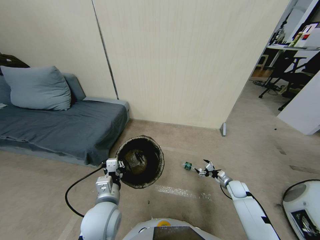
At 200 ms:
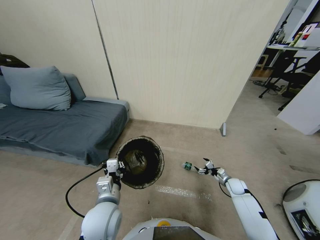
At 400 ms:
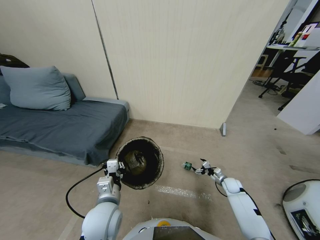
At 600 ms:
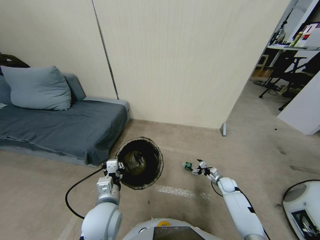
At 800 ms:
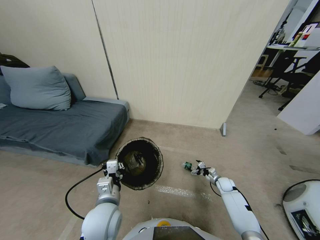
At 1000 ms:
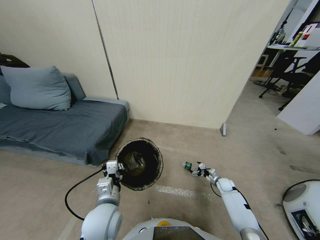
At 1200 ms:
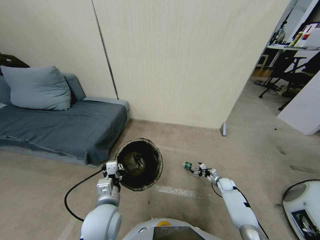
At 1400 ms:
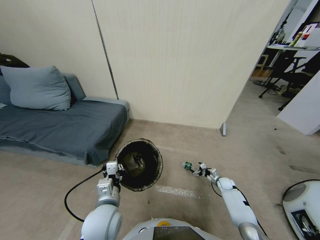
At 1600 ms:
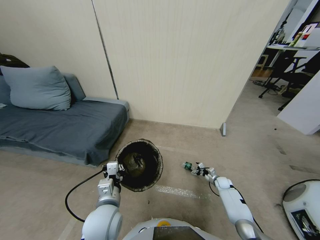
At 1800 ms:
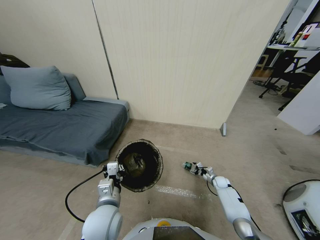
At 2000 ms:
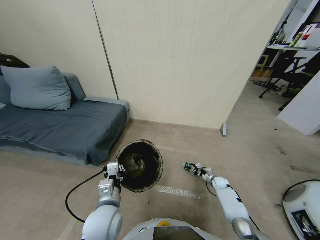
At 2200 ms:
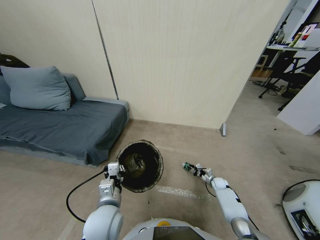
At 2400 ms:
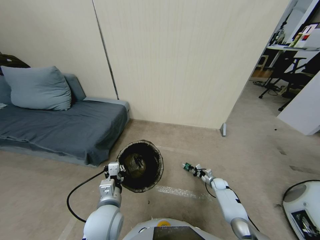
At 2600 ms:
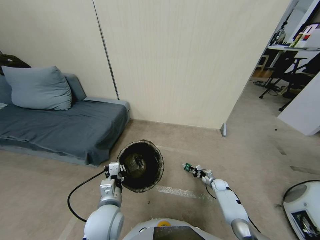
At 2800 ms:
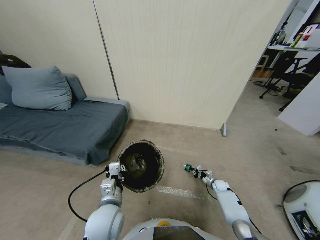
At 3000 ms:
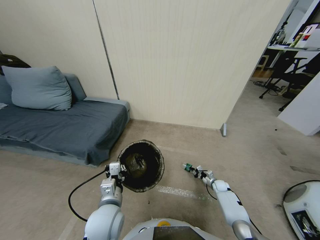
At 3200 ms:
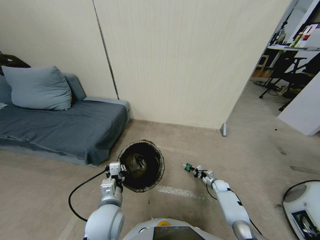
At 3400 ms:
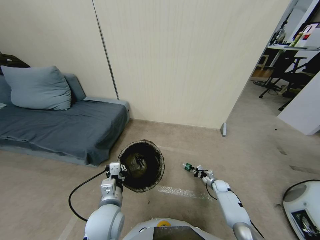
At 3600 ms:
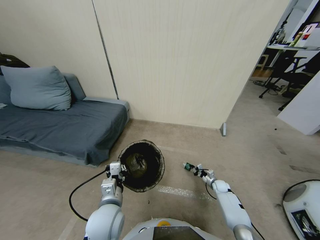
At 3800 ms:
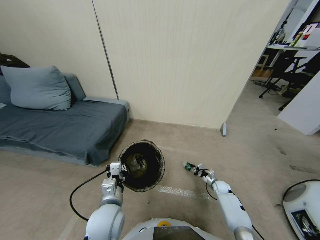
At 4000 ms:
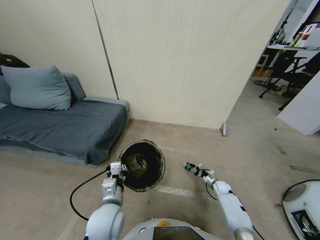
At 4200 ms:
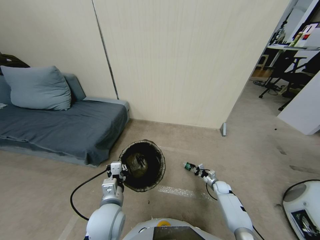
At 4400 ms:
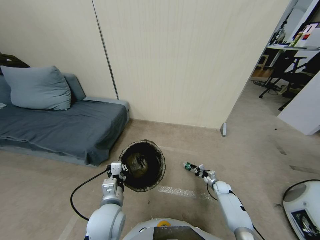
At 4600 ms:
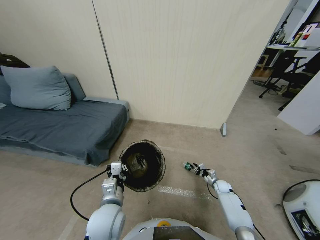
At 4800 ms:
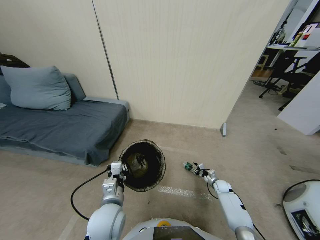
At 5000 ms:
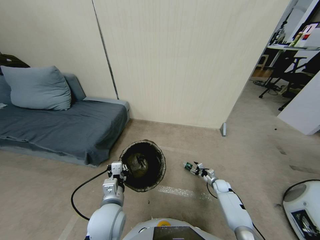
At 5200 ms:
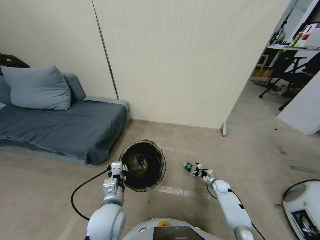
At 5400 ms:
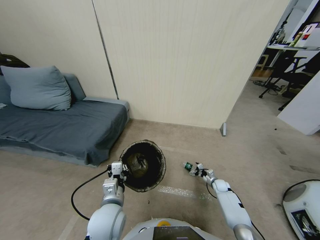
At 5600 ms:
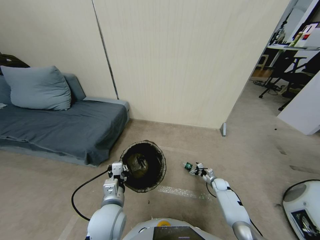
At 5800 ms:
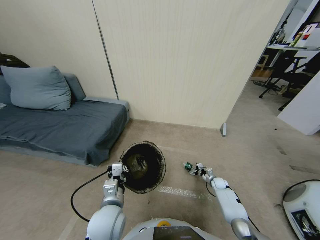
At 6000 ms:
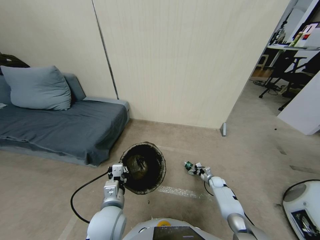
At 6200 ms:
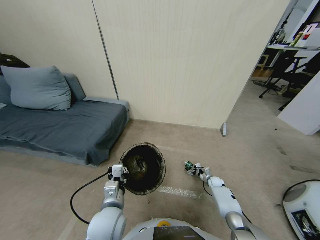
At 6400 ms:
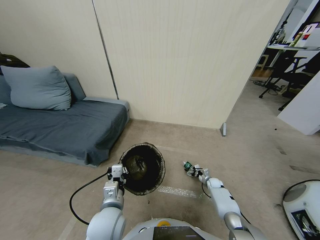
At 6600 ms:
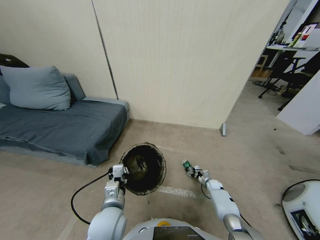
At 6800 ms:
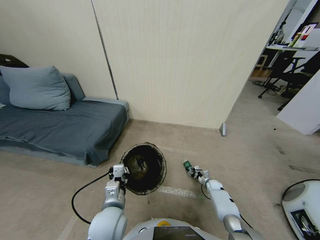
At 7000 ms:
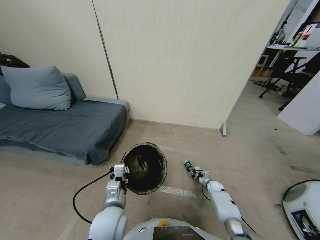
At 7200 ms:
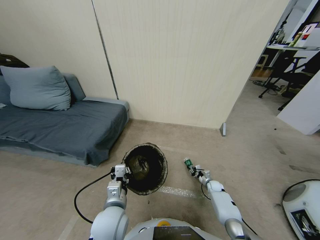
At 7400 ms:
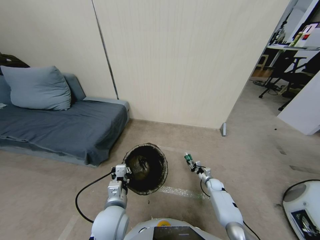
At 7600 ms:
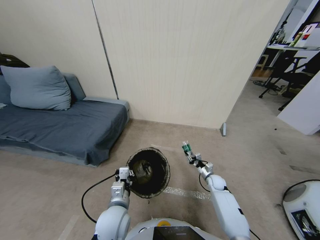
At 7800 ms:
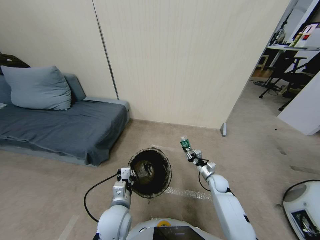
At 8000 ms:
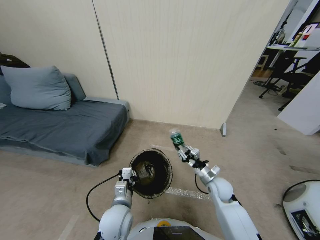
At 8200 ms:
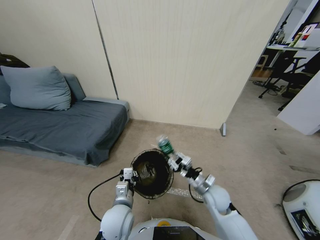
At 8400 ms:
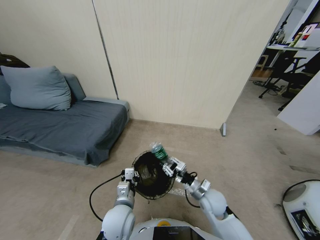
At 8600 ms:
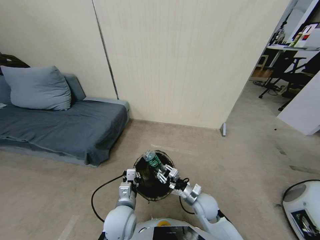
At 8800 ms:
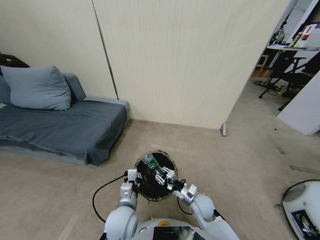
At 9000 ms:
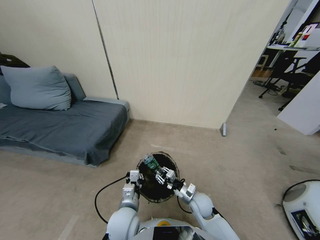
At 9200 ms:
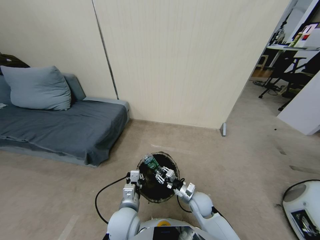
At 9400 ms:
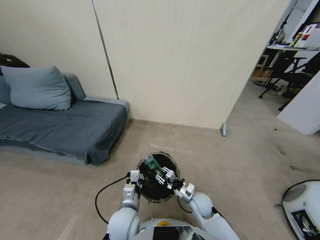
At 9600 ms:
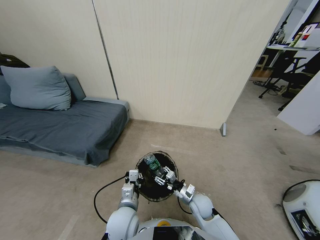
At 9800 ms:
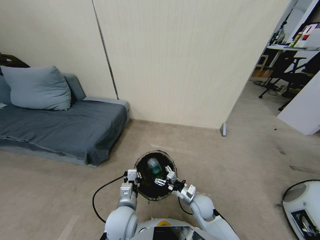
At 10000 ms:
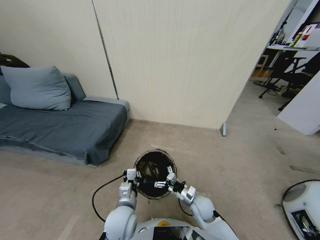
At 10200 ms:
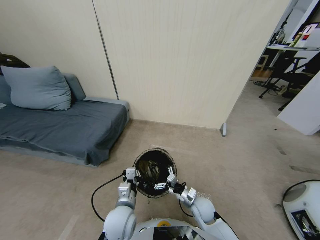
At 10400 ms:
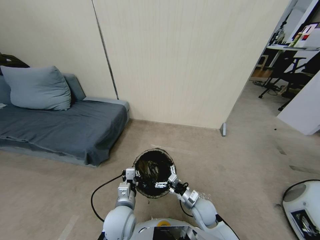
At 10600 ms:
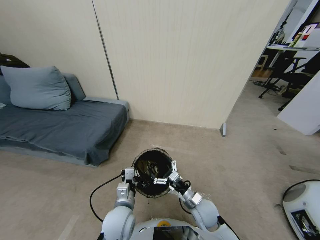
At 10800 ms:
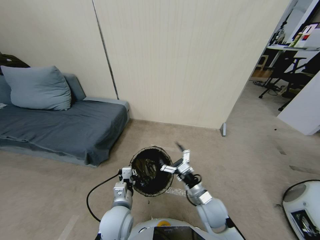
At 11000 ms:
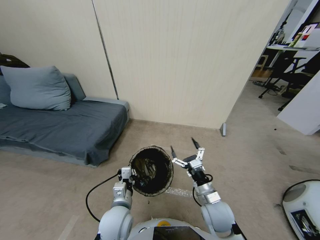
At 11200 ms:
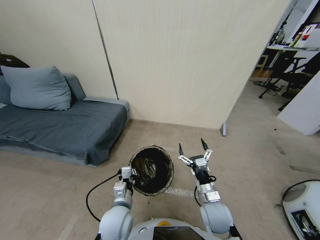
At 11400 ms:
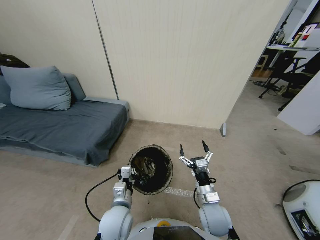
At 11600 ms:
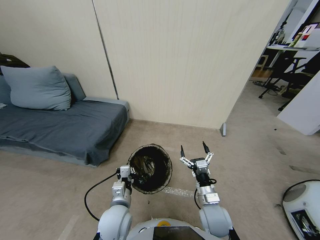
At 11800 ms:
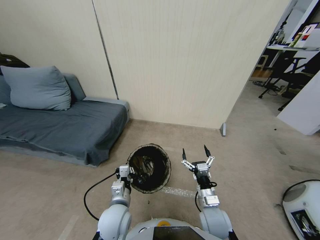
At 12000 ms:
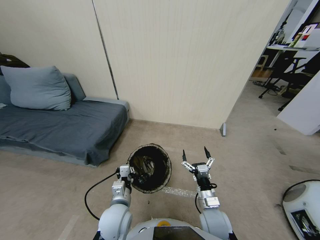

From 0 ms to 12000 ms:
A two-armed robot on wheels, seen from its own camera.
Task of the whole recording: Pick up the trash bin, then pick up the garbage from the floor and place it into the trash bin.
From 0 ms to 1600 ms: The right gripper is displaced downward by about 10 cm.
From 1600 ms to 3000 ms: The right gripper closes its fingers.
From 3000 ms to 4400 ms: The grippers stay close to where they were, moving slightly.
From 4400 ms to 6000 ms: The right gripper opens up.
From 6000 ms to 7600 ms: The right gripper moves upward and to the left, about 15 cm, and closes up.
From 7600 ms to 9000 ms: The right gripper travels to the left and backward by some 15 cm.
From 9000 ms to 10400 ms: The right gripper shifts by approximately 5 cm, and opens its fingers.
From 10400 ms to 12000 ms: The right gripper changes place by about 5 cm.

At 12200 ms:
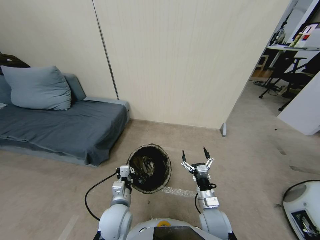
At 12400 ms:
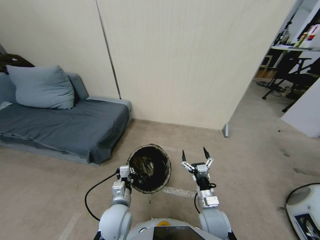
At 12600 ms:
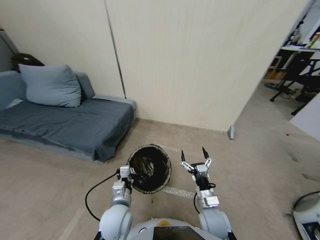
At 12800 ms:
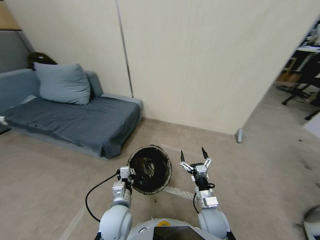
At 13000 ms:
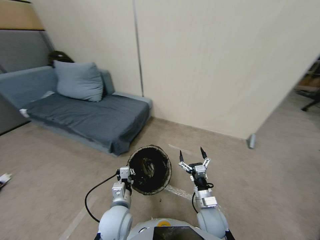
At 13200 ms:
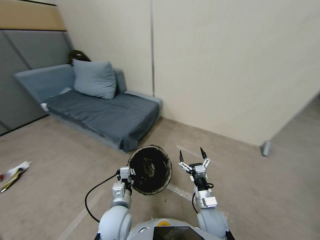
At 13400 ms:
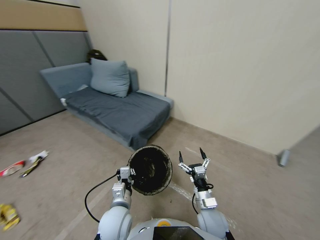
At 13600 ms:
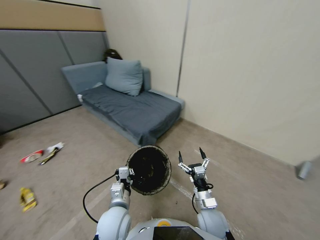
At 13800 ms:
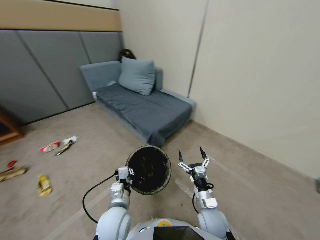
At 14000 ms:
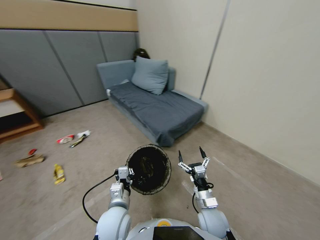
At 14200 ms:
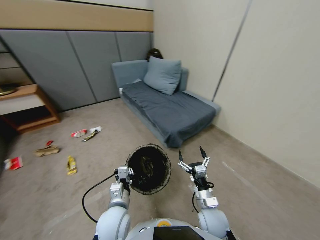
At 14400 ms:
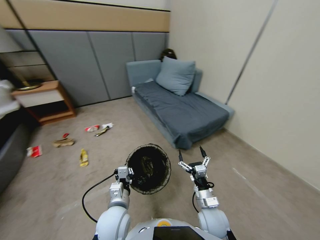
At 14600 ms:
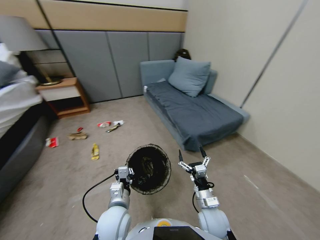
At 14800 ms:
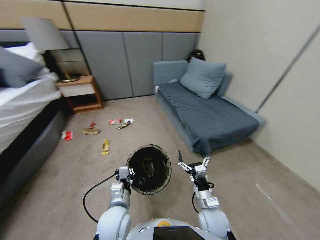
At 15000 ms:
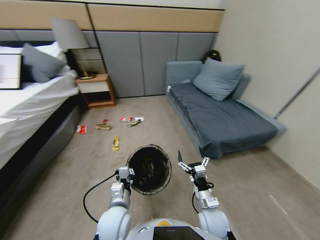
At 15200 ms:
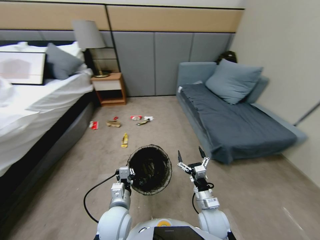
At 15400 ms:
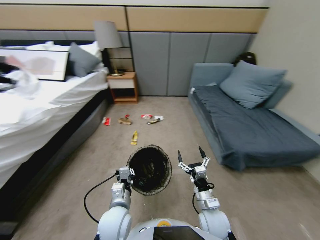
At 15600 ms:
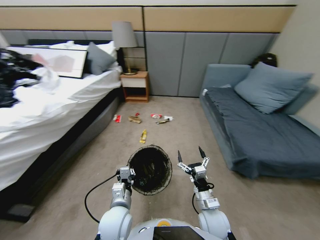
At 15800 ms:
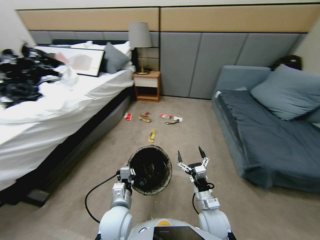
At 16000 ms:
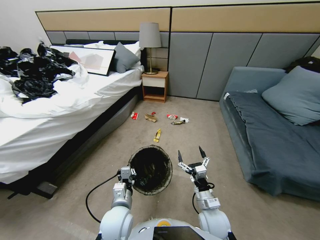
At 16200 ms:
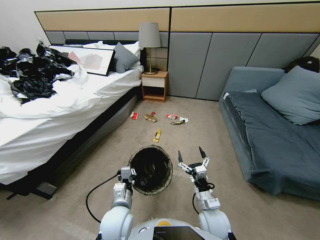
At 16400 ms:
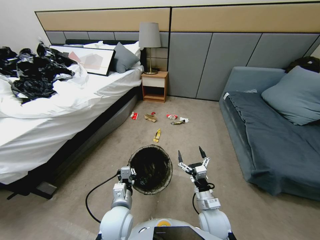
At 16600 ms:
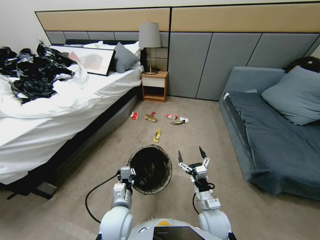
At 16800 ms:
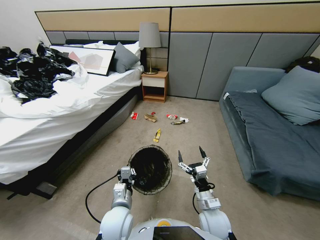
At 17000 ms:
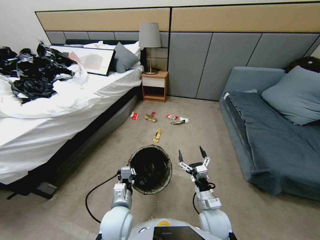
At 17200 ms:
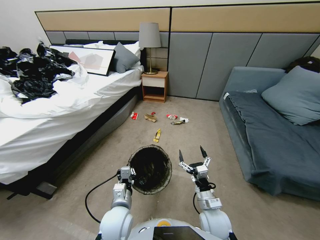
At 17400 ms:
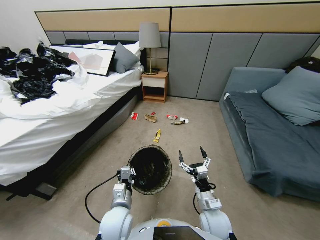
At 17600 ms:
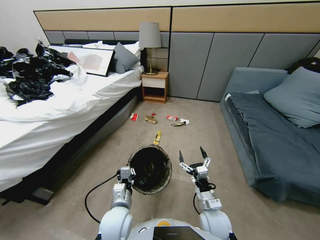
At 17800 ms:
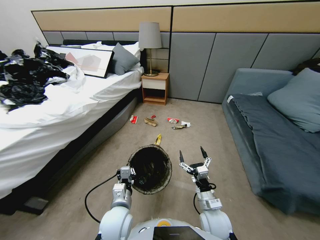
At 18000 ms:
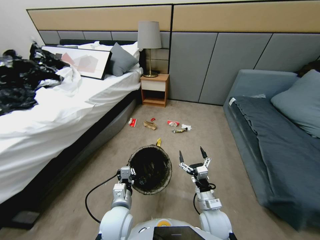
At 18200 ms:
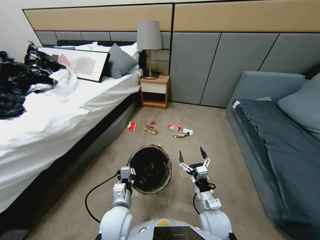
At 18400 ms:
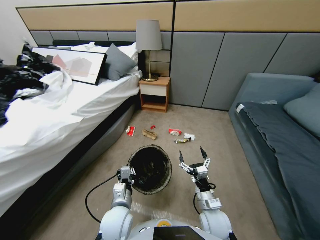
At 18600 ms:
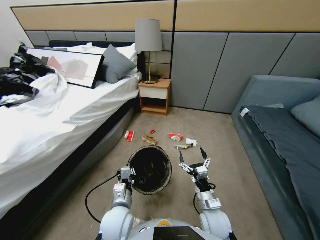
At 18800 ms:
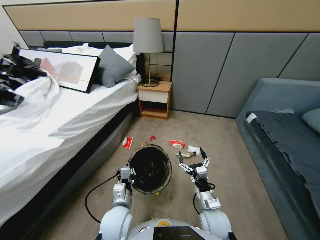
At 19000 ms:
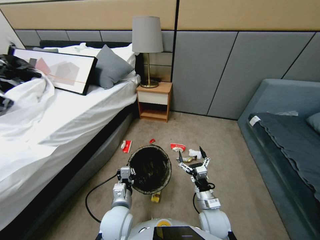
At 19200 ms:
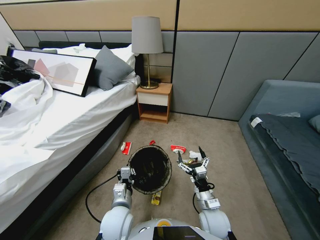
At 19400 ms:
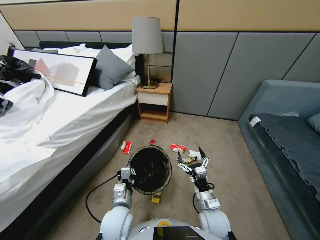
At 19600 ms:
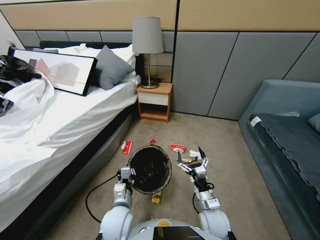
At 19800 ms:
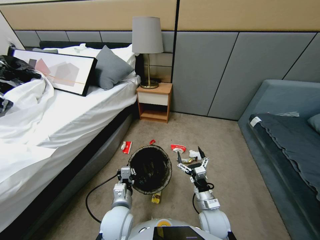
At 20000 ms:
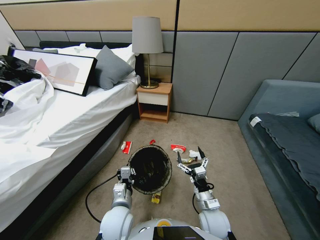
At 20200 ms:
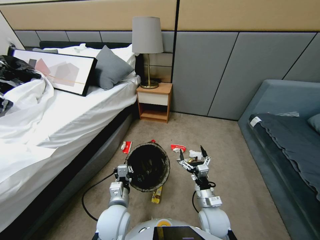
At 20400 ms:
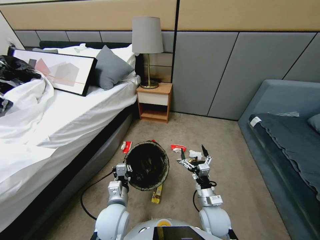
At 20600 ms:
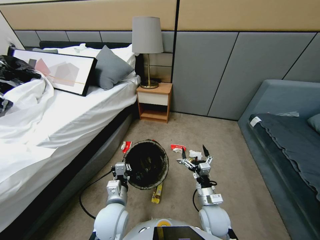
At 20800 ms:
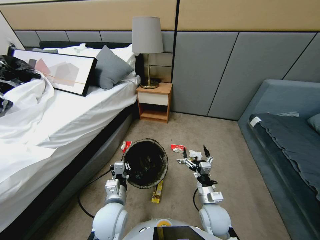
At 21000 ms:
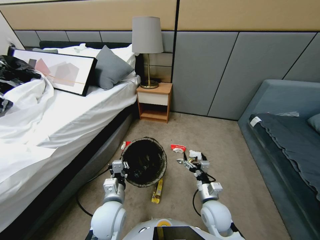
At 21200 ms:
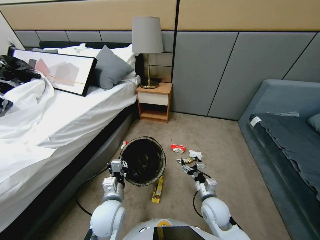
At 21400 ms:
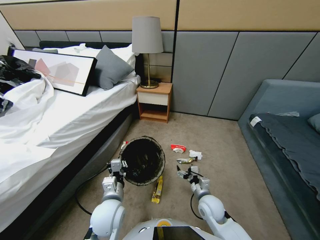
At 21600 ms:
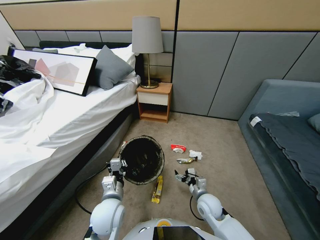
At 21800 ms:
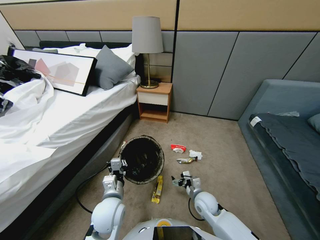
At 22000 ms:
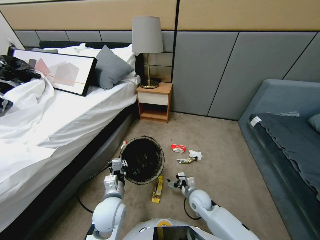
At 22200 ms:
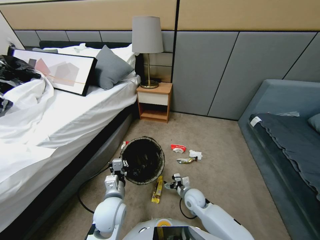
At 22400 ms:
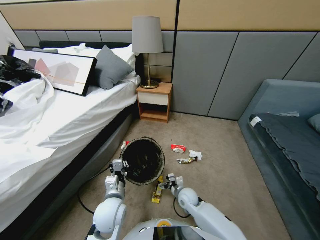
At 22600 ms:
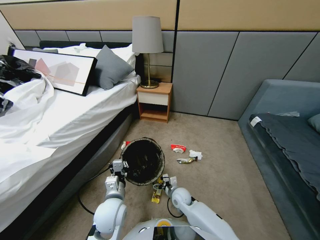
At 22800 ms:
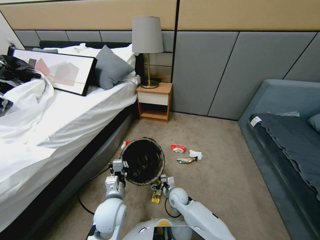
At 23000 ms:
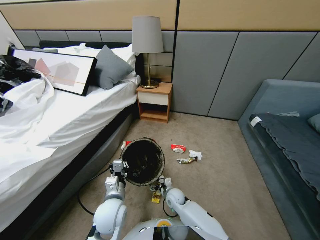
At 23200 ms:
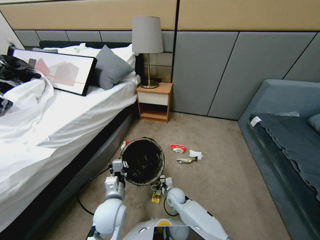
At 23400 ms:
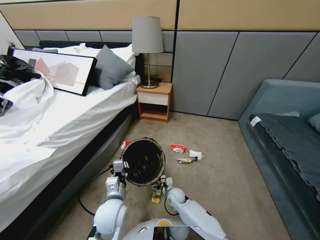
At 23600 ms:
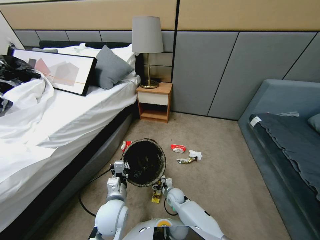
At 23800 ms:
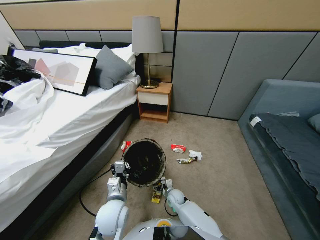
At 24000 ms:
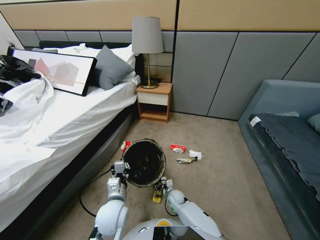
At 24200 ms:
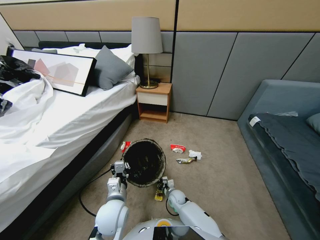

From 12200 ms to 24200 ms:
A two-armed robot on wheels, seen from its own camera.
Task of the whole recording: Pick up the trash bin, then pick up the garbage from the floor and place it into the trash bin.
From 21200 ms to 22600 ms: The right gripper moves to the left, downward and forward, some 15 cm.
From 22600 ms to 24200 ms: The right gripper heads downward, covering some 10 cm, and closes up.
